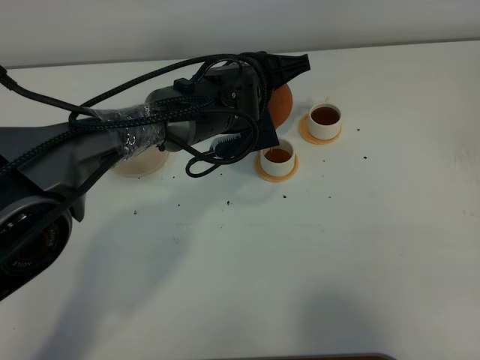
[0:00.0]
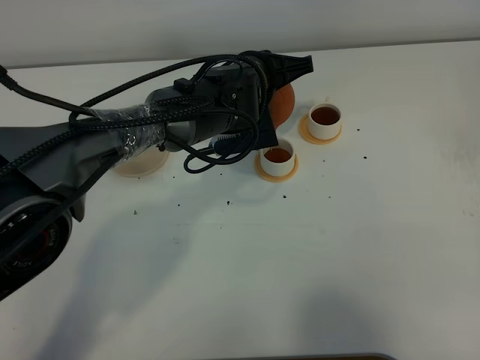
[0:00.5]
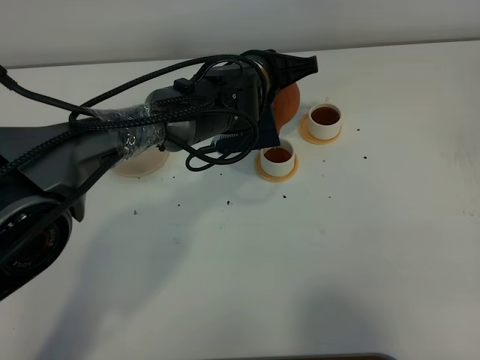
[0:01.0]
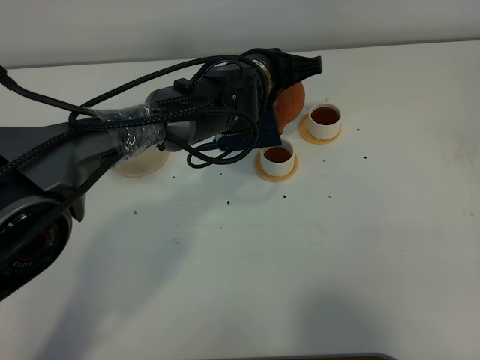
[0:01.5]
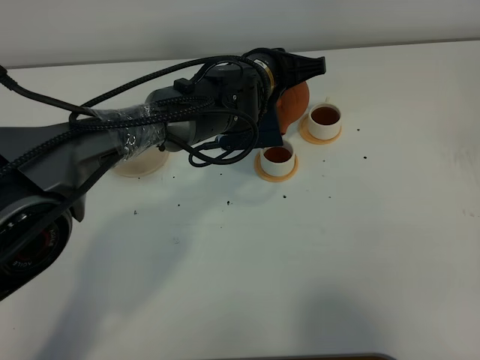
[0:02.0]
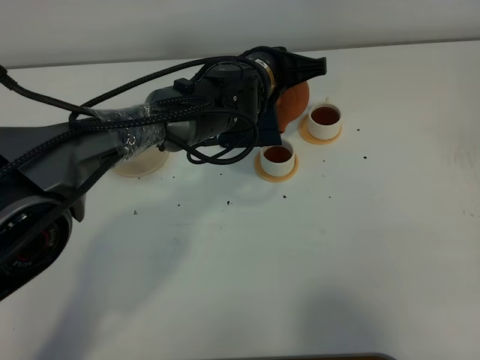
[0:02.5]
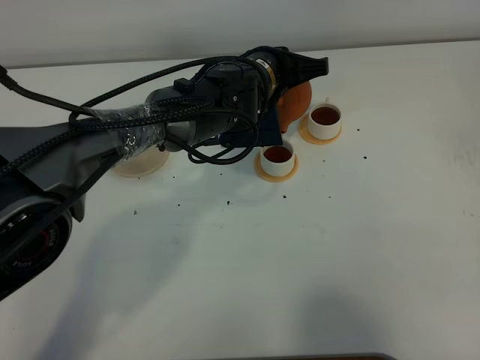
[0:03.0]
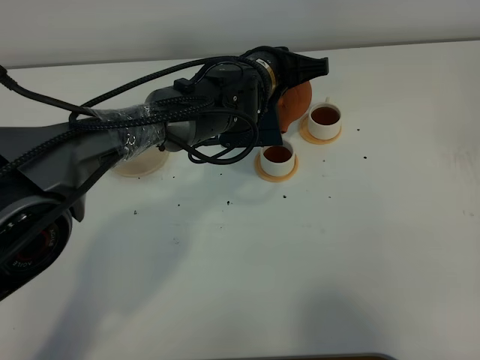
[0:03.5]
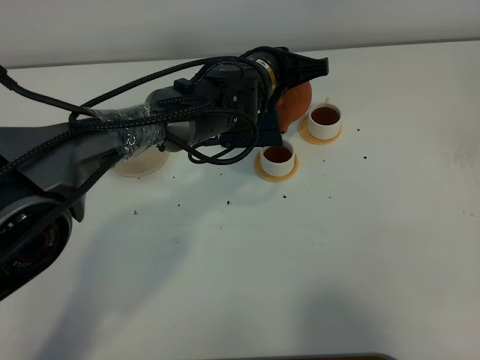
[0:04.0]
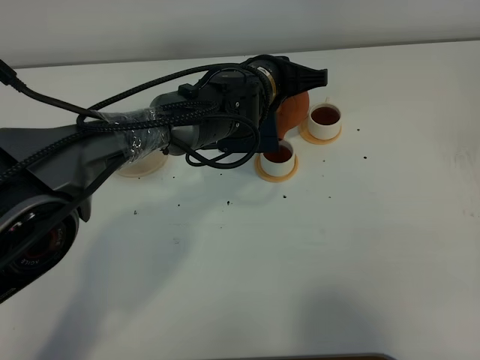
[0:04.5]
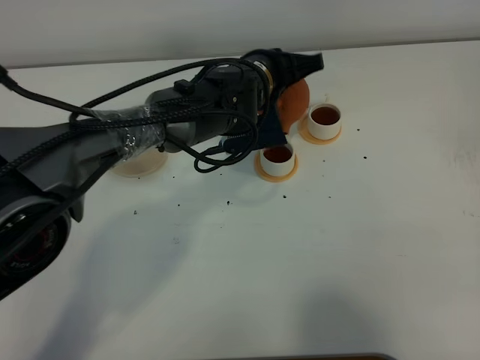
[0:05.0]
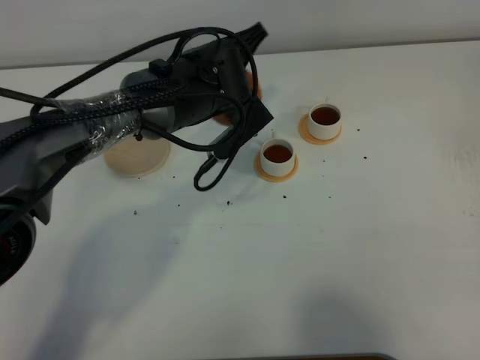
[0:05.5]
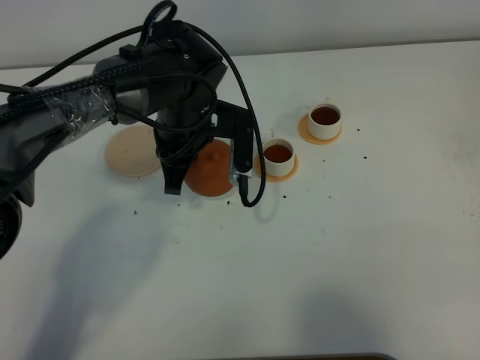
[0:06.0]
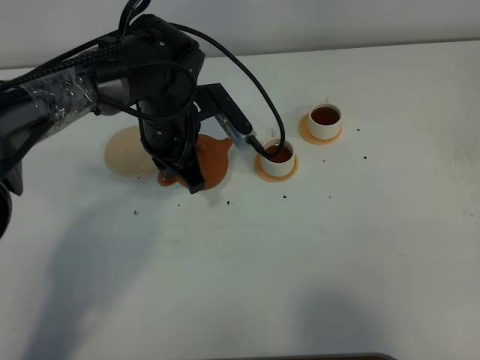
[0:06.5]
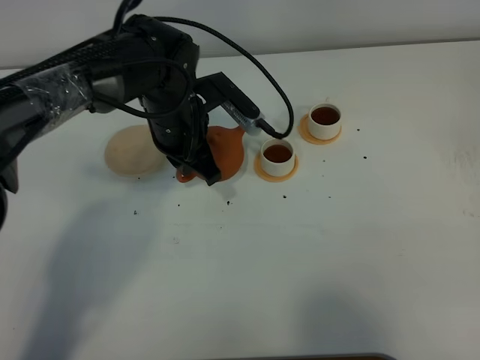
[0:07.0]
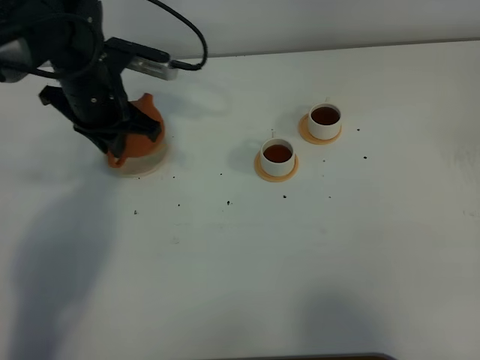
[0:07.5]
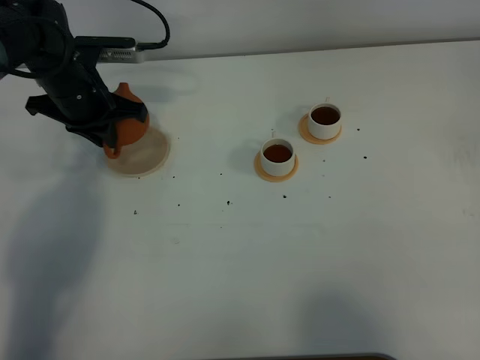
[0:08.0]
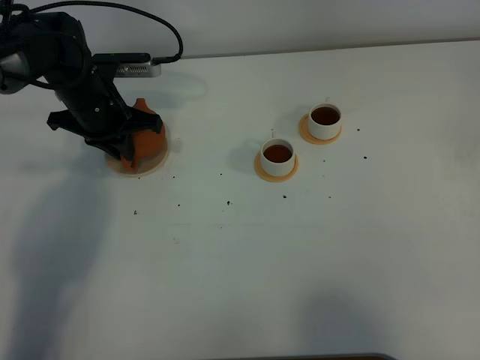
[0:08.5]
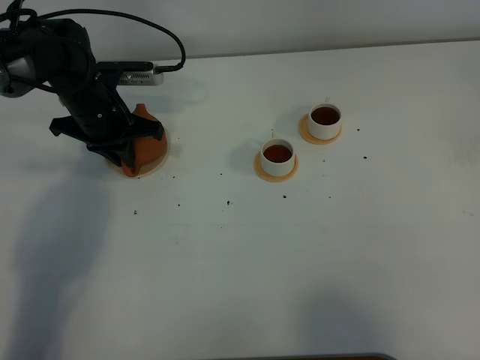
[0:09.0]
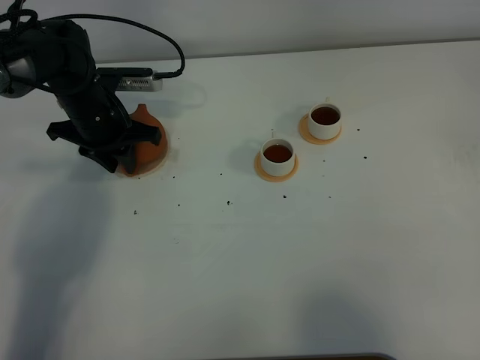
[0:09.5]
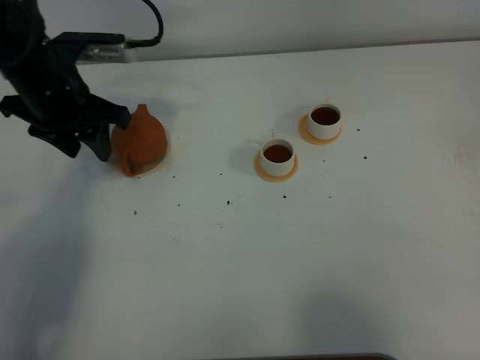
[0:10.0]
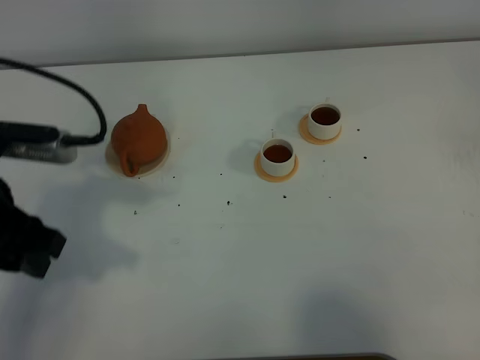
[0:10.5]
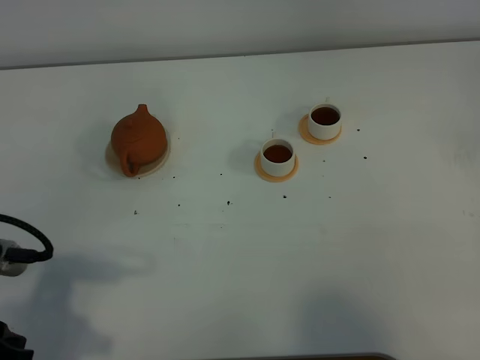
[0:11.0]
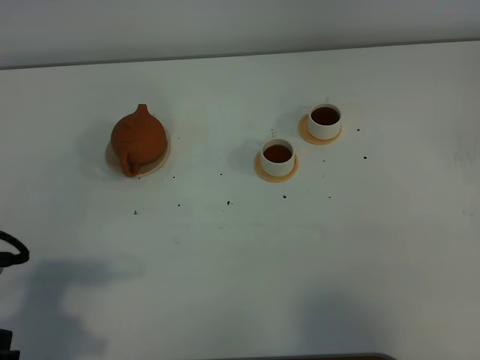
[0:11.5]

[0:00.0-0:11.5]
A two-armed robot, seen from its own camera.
Task of the whole recording: grasp the brown teapot and pour the tea into the two white teacups one by one, put the brown teapot back in its original place.
Step, 0:00.0 to 0:05.0: Pour tea into the teacup with the left gripper.
0:00.0 to 0:02.0: There are only small adjustments of the grippers.
0:02.0 to 0:04.0: Both grippers stay put.
0:04.0 to 0:06.0: The left gripper heads to the left, covering approximately 10 cm.
0:06.0 to 0:07.5: The left gripper travels to the left by about 10 cm.
0:07.5 to 0:09.5: The left gripper moves downward, some 5 cm, and opens its fingers.
0:09.5 to 0:11.5: The left gripper shifts about 35 cm backward.

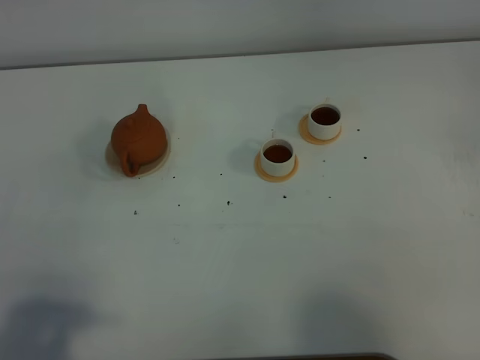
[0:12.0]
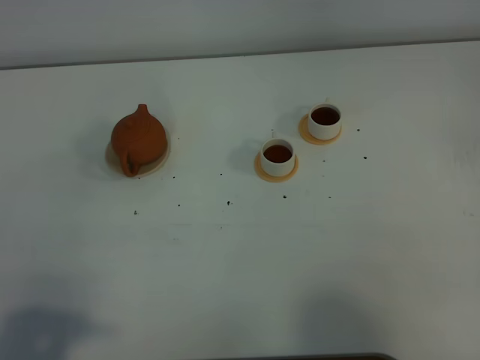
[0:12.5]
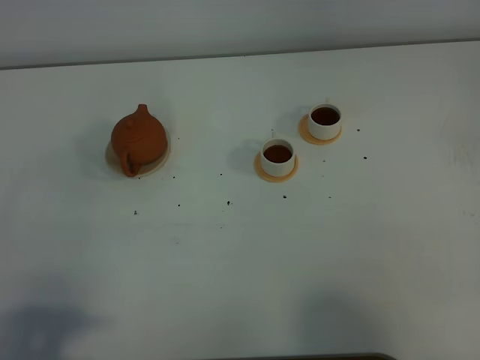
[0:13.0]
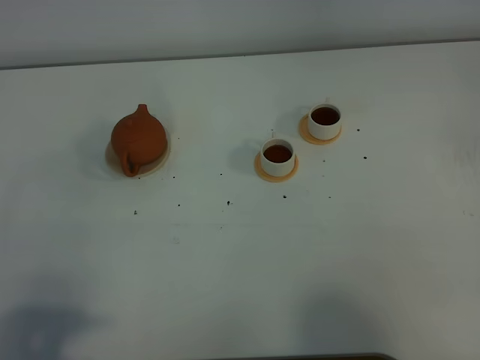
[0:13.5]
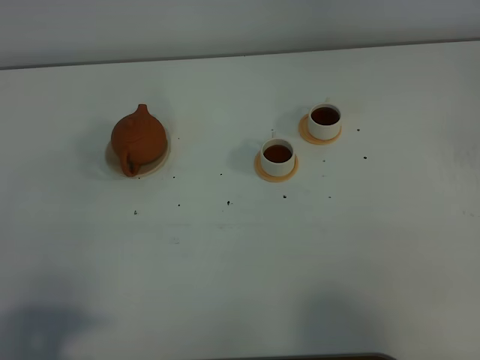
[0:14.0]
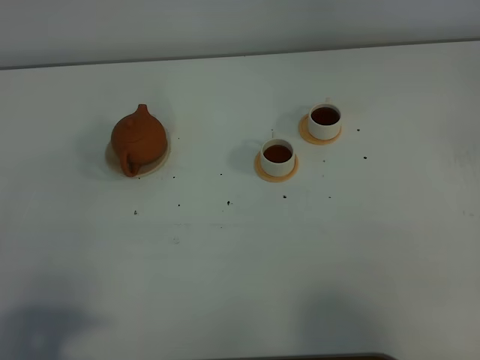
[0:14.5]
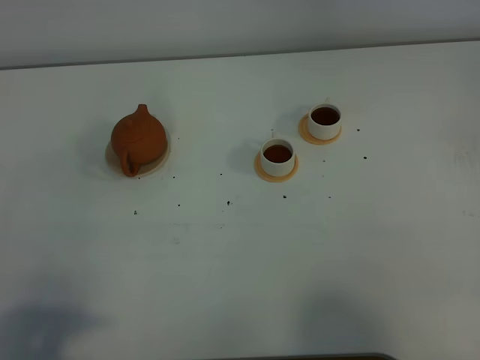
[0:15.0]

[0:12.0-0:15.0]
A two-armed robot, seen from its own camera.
Task of the whole recording: grasp the brown teapot and pour the tea into the two white teacups one by one, put the brown teapot back in its original place.
0:13.5 to 0:15.0: Neither gripper changes place.

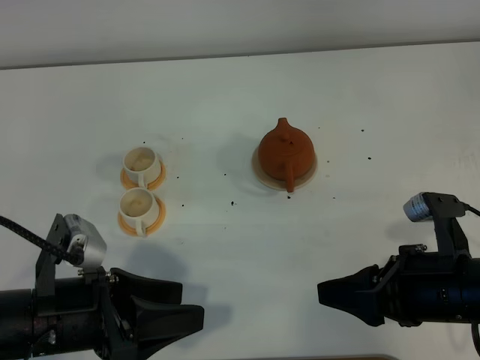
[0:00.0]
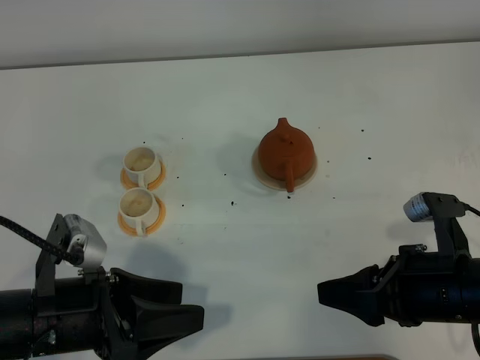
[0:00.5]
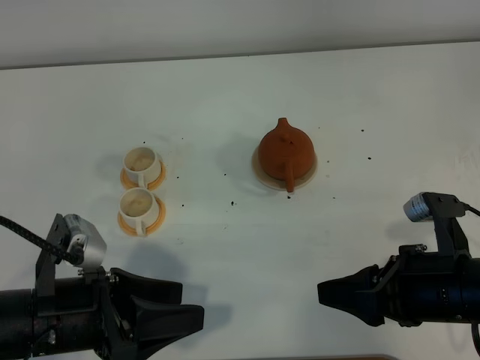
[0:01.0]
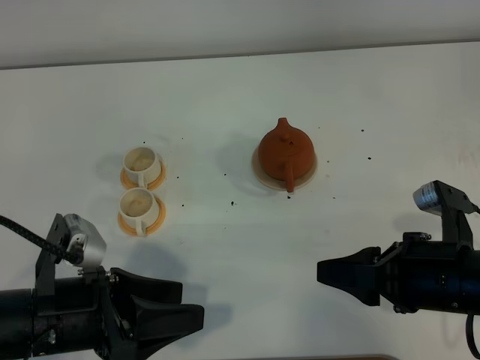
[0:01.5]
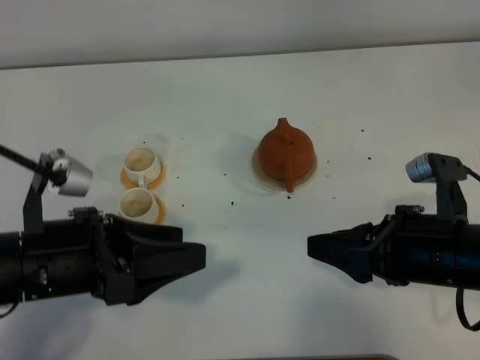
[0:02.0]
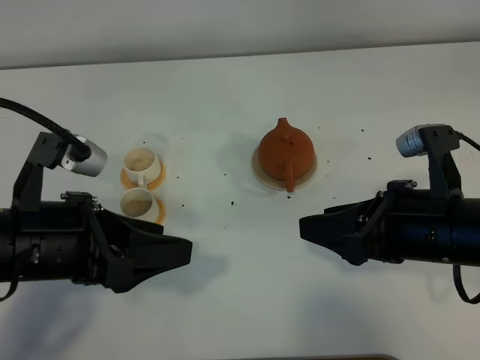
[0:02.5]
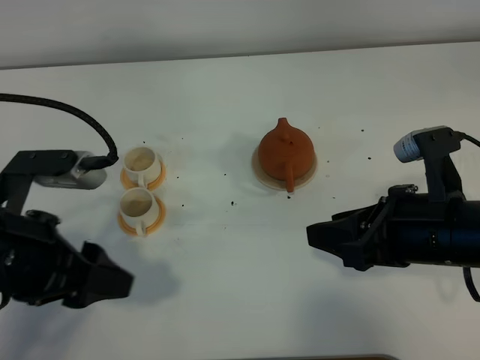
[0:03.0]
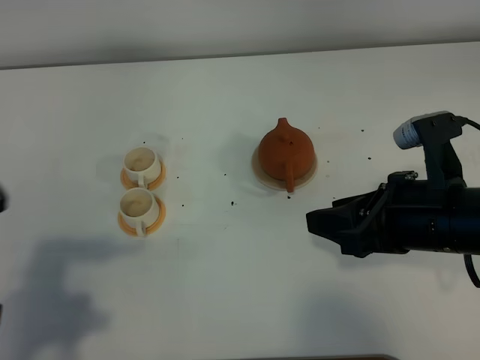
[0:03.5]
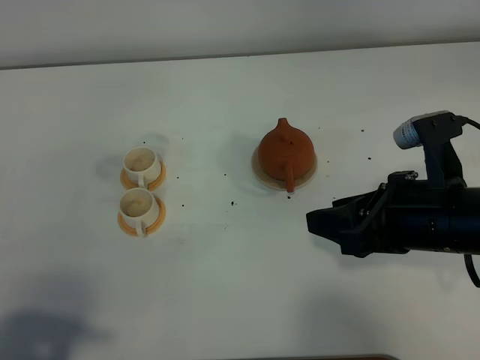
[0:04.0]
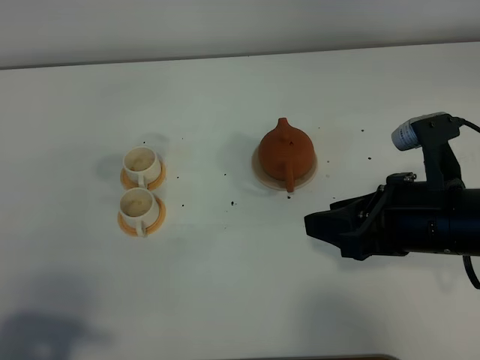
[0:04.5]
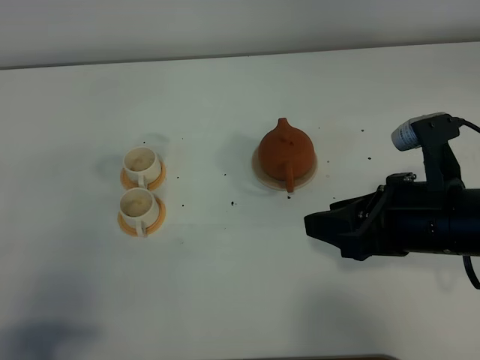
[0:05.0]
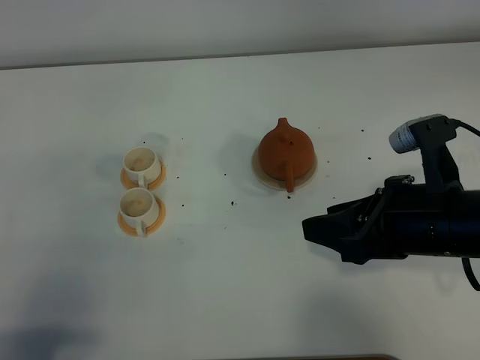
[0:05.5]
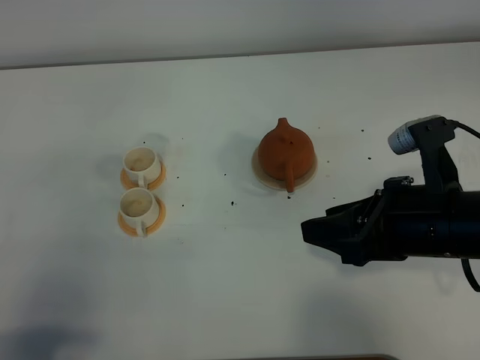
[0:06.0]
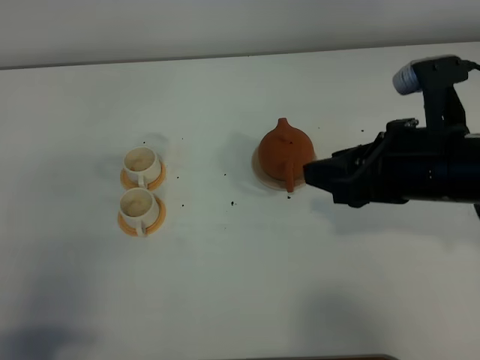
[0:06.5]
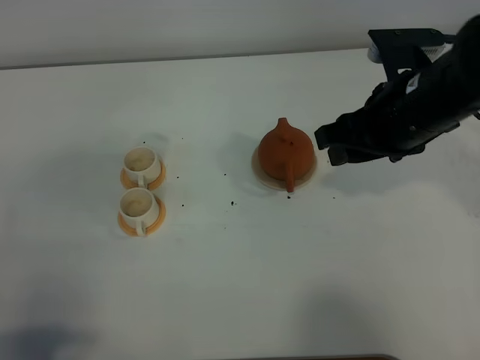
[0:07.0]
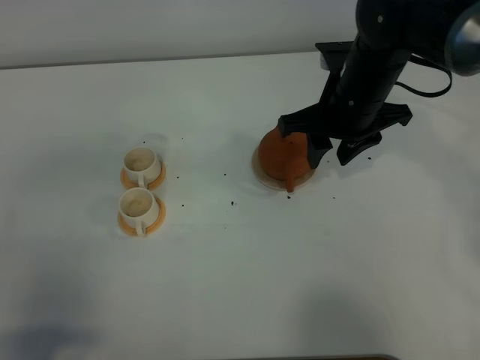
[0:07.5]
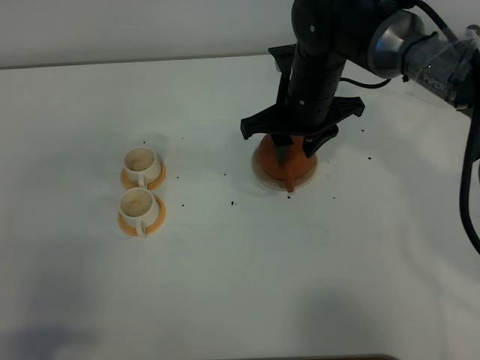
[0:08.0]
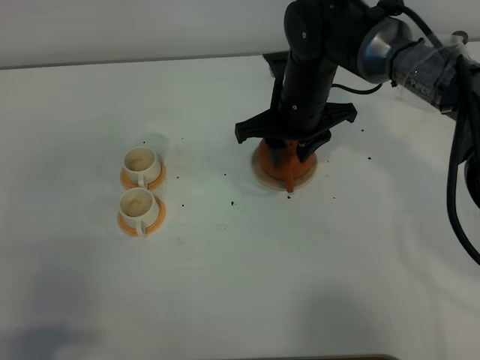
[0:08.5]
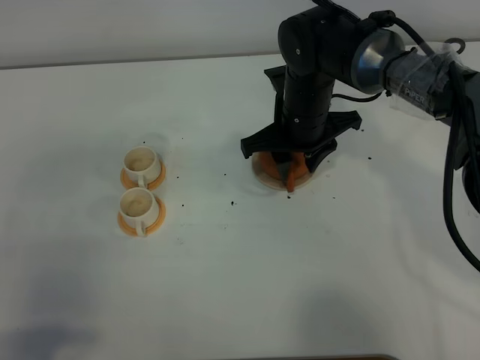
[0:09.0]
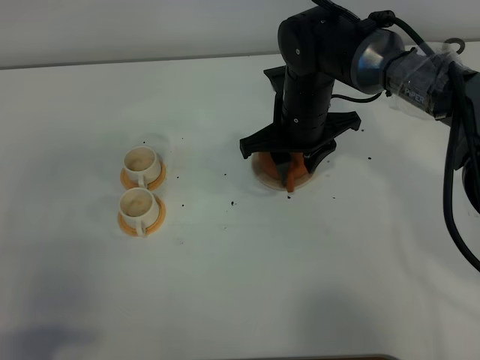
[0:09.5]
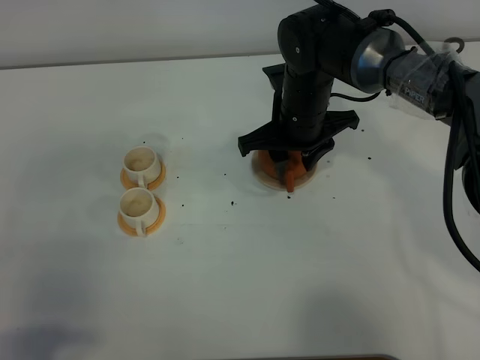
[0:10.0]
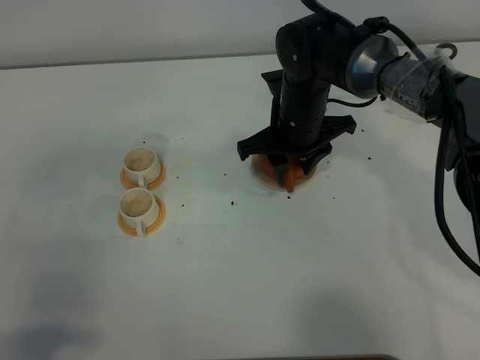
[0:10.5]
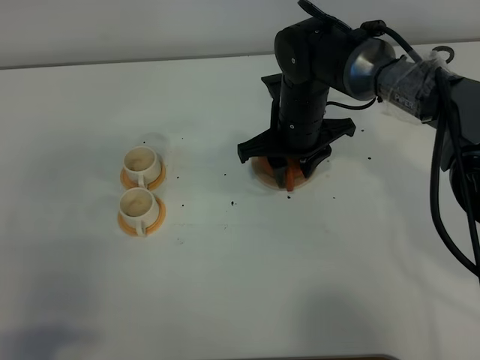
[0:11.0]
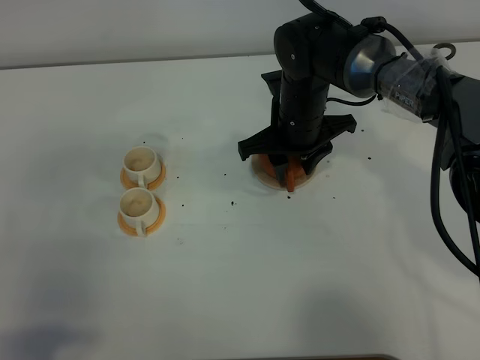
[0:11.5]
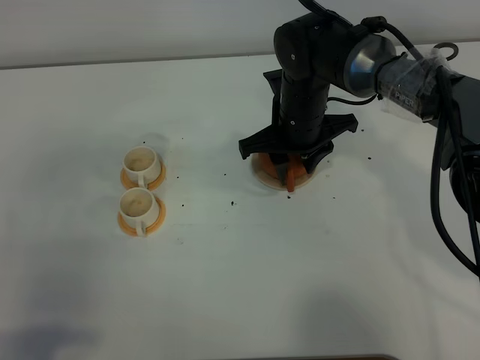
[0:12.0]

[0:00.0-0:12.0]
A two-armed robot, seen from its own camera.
Task of the whole recording: grasp the brown teapot and pour the tea into the two white teacups one by one, put the brown teapot back in its original place.
0:00.0 to 0:02.0: The left gripper moves upward, approximately 5 cm.
0:02.0 to 0:04.0: The left gripper heads backward and to the left, covering about 20 cm.
0:04.0 to 0:06.0: The grippers move only a little.
0:06.0 to 0:08.0: The right gripper goes roughly 25 cm forward and to the left.
0:08.0 to 0:12.0: The grippers move only a little.
